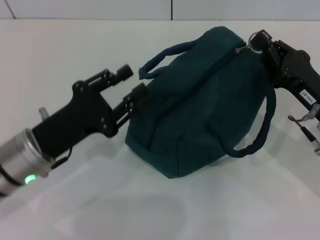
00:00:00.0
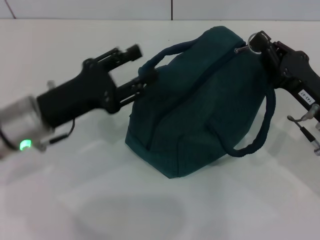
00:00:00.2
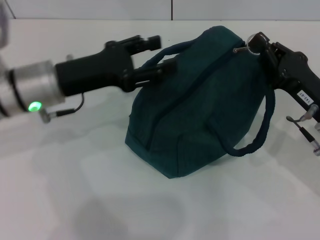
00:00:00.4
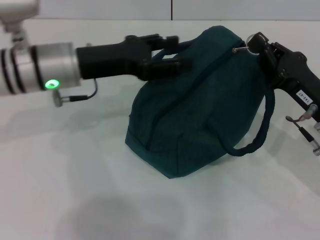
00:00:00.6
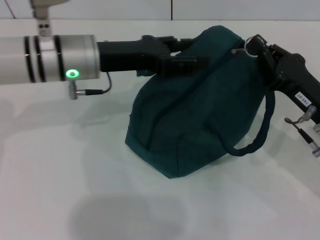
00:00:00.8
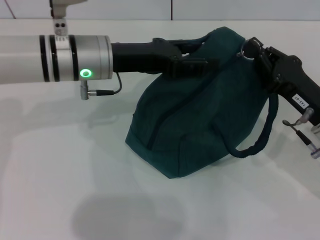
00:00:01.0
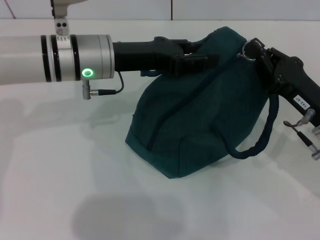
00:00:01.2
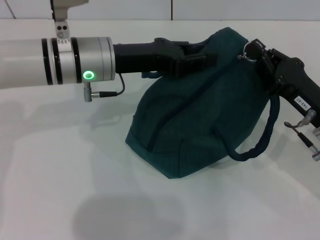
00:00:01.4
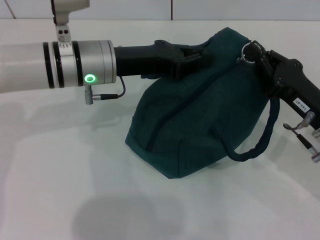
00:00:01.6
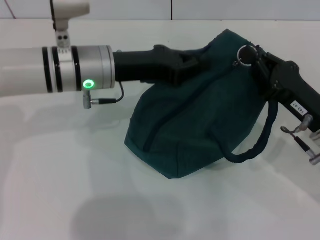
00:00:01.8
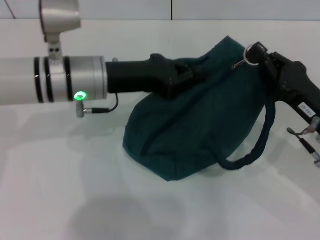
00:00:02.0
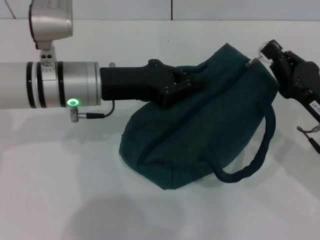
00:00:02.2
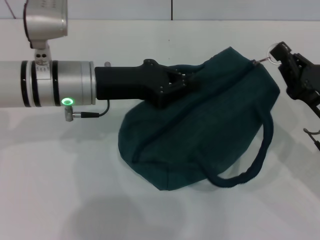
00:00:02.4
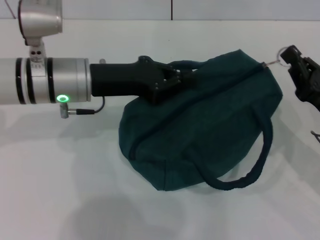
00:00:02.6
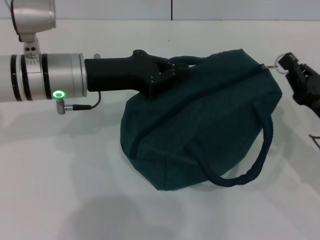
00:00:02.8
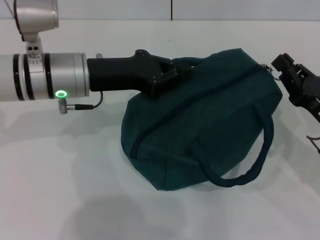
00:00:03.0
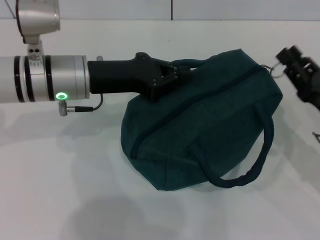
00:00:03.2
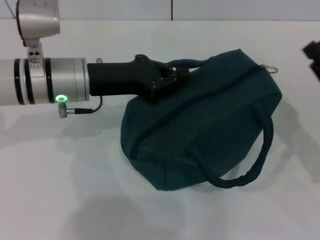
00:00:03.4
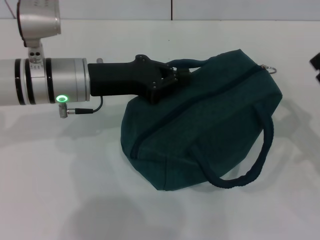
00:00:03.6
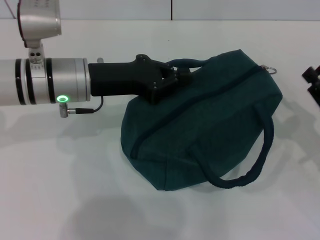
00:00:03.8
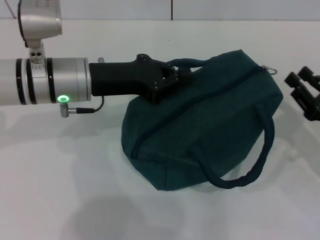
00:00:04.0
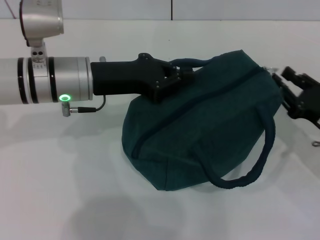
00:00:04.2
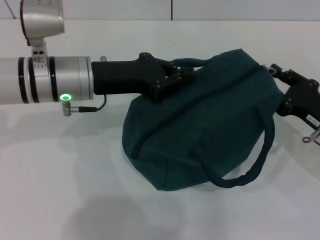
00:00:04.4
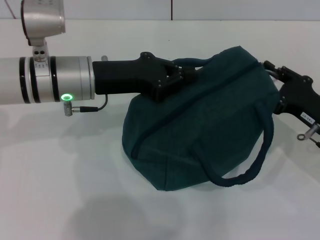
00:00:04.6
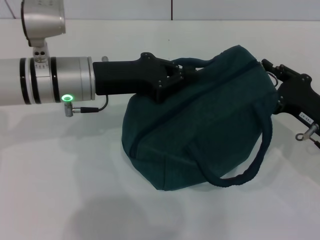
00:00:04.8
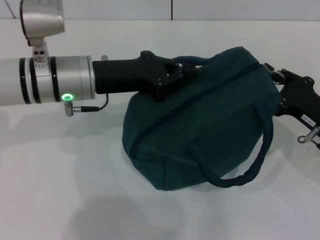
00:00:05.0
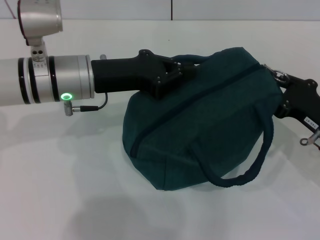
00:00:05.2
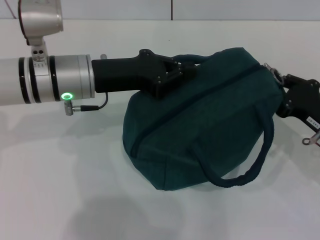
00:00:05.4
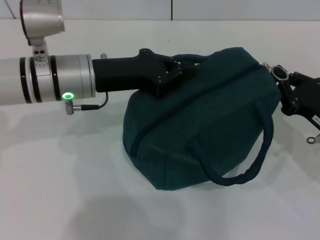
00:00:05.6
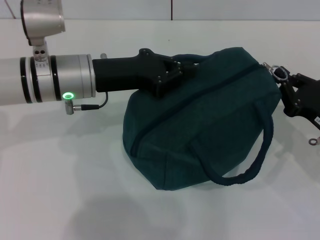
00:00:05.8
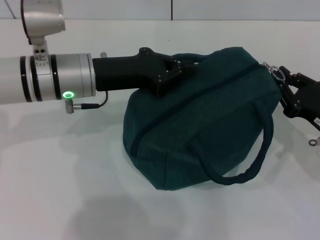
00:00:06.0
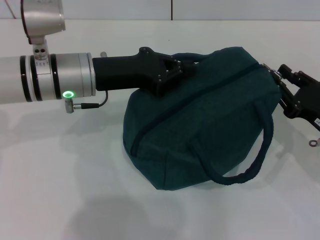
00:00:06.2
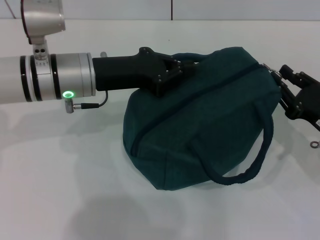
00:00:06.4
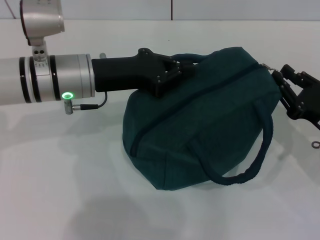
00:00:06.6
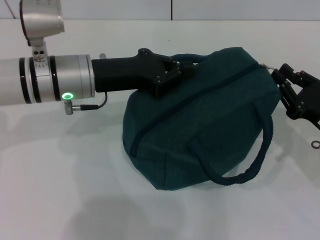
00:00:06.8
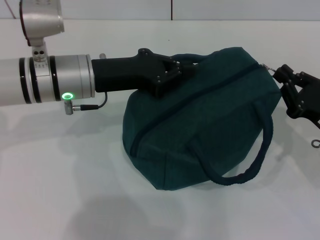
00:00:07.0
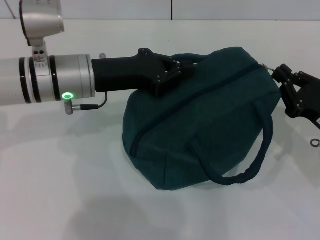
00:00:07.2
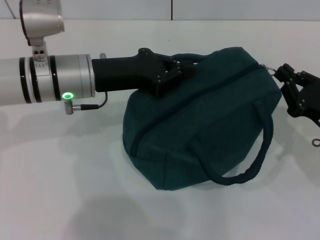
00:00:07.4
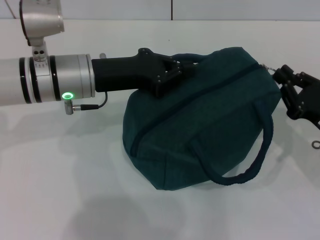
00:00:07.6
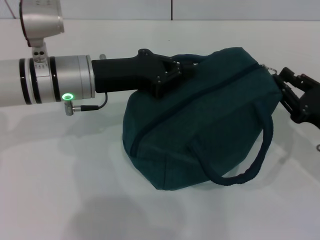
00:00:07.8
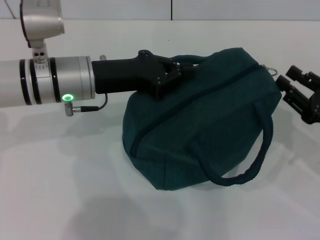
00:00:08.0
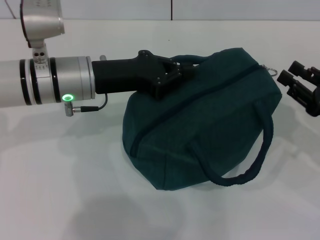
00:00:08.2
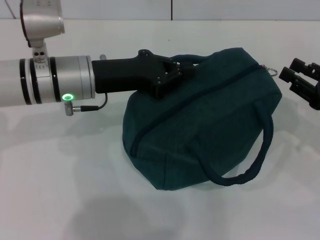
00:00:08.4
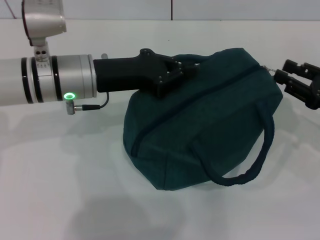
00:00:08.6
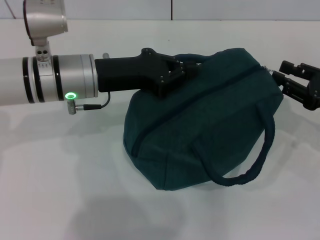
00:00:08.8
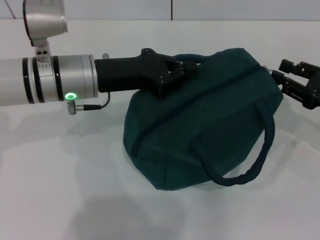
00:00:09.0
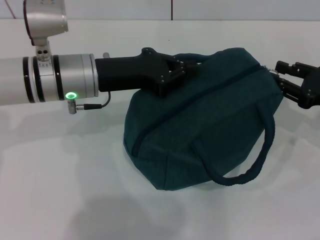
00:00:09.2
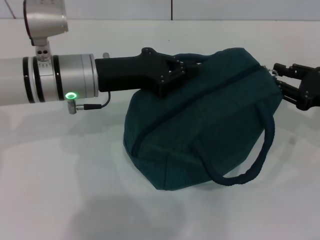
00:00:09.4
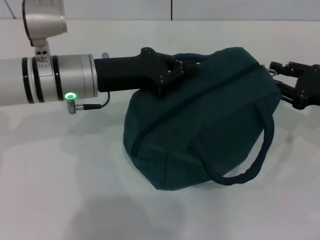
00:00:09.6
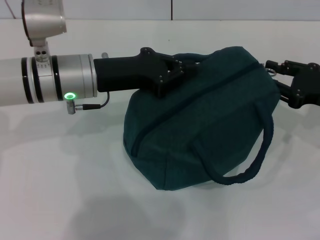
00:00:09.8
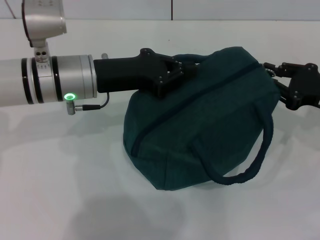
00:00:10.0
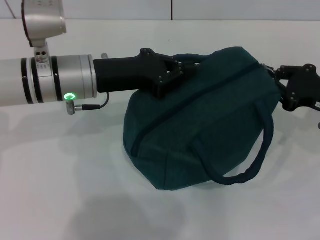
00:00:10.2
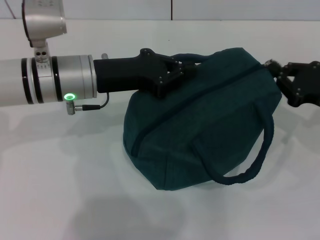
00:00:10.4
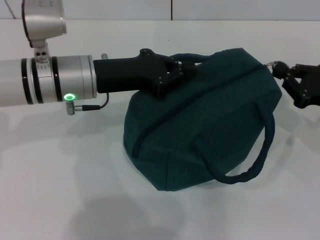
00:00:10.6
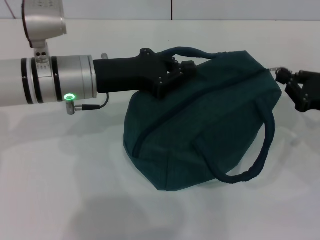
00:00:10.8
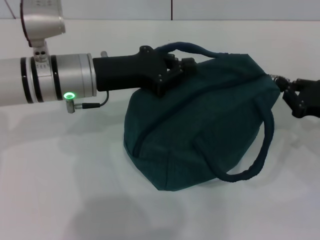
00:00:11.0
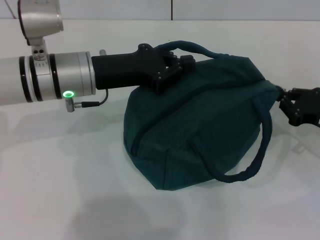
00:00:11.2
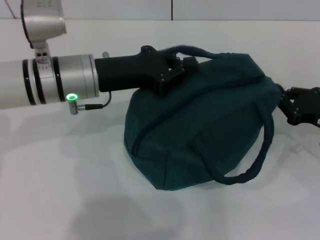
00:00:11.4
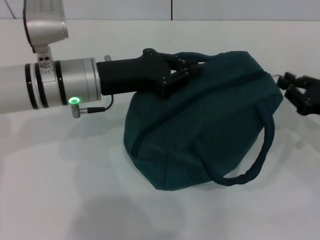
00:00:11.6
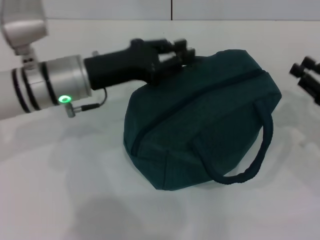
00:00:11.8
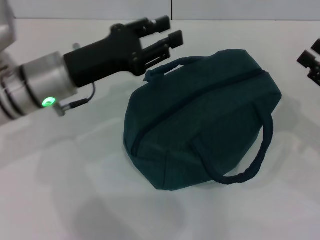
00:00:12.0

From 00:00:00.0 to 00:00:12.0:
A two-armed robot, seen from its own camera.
Step, from 00:00:00.0 to 00:00:11.6: Zip up the lunch bag with your right hand.
From 00:00:00.0 to 00:00:01.6: The left gripper goes some 15 cm forward, to the right and upward, and opens and closes again.
From 00:00:01.6 to 00:00:03.0: The left gripper closes.
From 00:00:03.0 to 00:00:04.4: The right gripper opens its fingers.
From 00:00:04.4 to 00:00:06.0: Neither gripper changes place.
From 00:00:06.0 to 00:00:07.6: Both grippers stay about where they are.
From 00:00:07.6 to 00:00:09.0: The right gripper shifts by roughly 5 cm, and opens.
From 00:00:09.0 to 00:00:10.4: The grippers make only small movements.
From 00:00:10.4 to 00:00:12.0: The left gripper opens up.

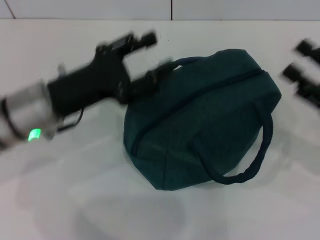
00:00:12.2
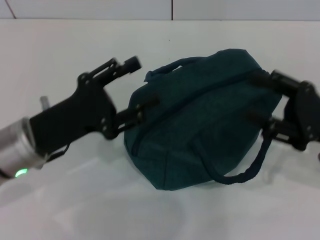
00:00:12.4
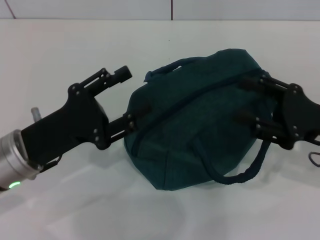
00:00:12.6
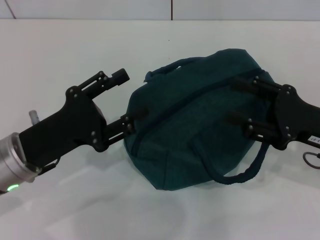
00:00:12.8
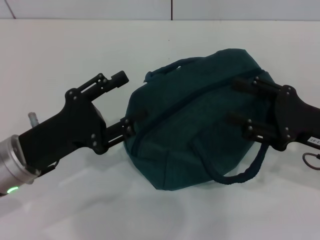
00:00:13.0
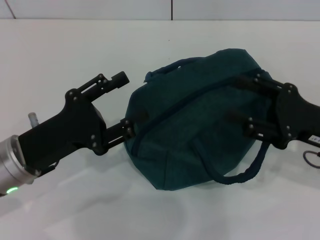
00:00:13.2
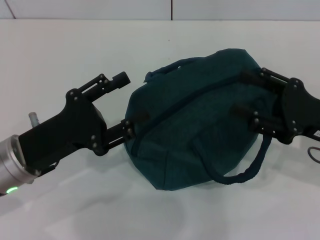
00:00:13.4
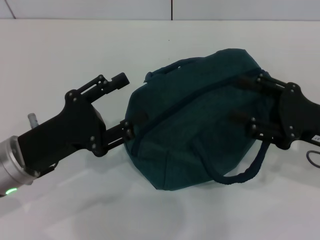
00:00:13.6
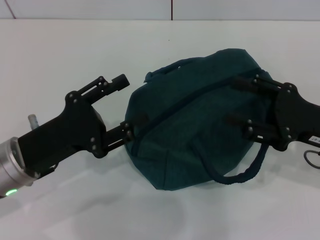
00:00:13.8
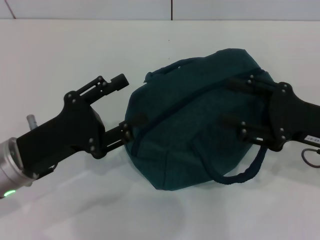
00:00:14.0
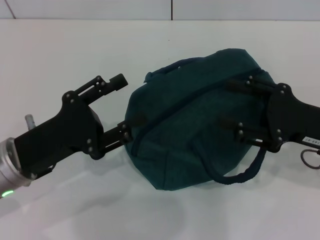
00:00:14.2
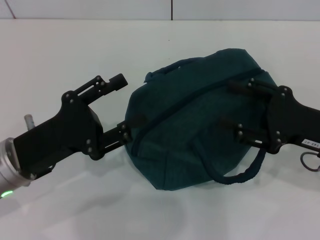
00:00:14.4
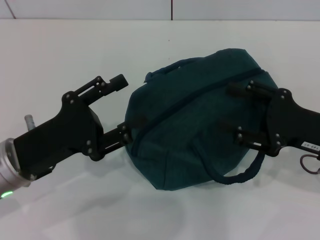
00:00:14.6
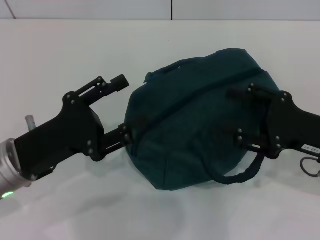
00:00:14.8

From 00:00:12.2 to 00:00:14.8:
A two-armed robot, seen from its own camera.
From 00:00:12.2 to 00:00:13.4: The left gripper travels backward by approximately 5 cm, and opens.
From 00:00:13.4 to 00:00:14.8: There are only small adjustments of the grippers.
